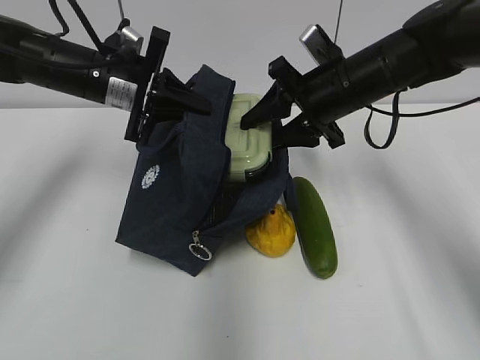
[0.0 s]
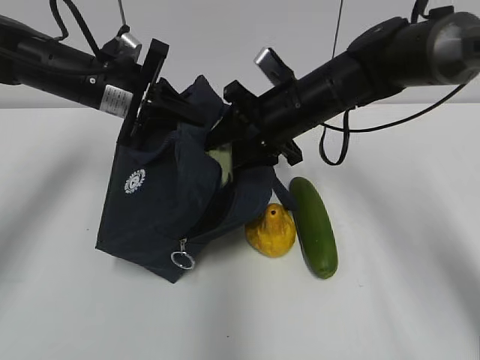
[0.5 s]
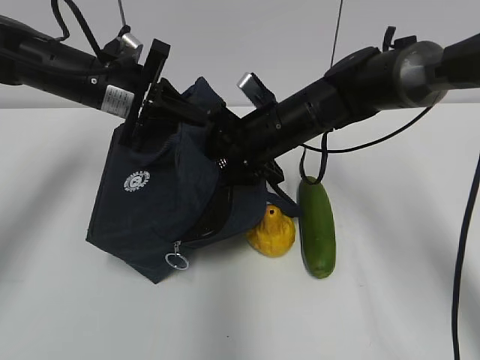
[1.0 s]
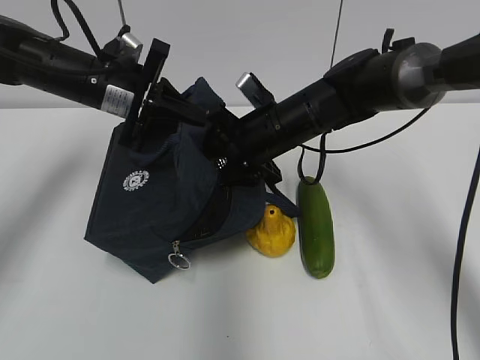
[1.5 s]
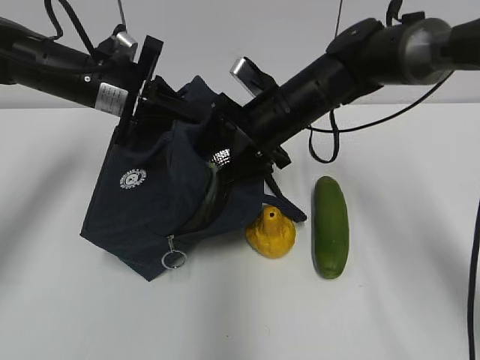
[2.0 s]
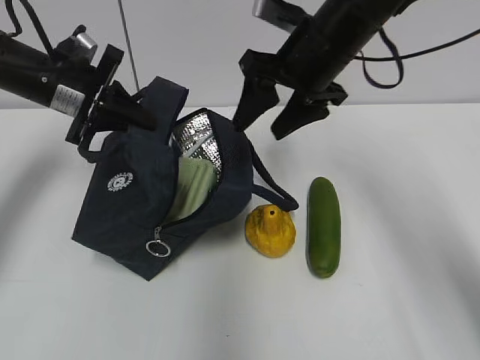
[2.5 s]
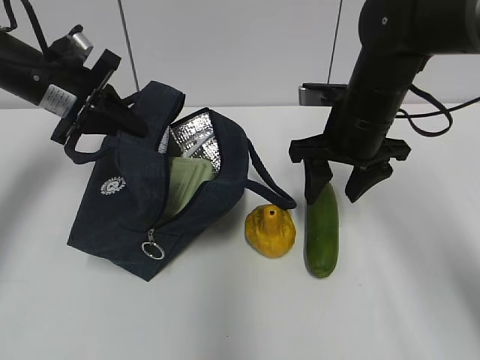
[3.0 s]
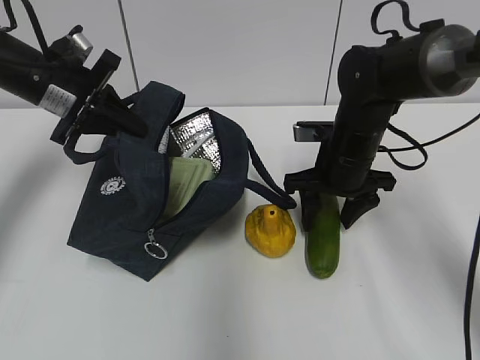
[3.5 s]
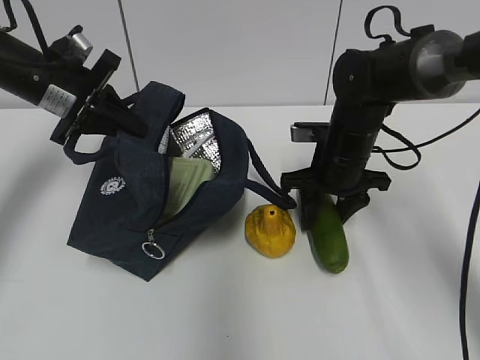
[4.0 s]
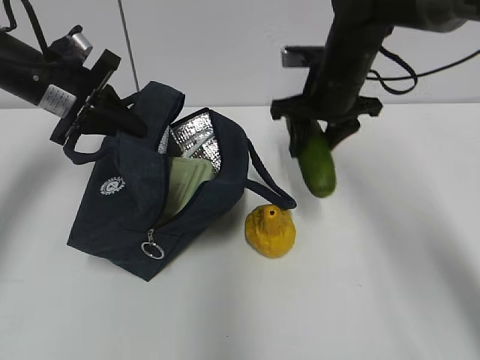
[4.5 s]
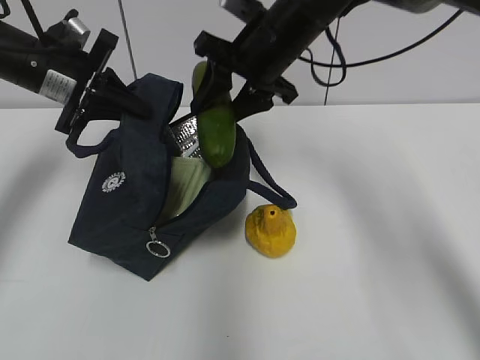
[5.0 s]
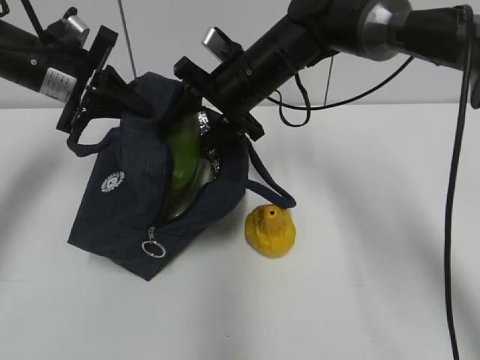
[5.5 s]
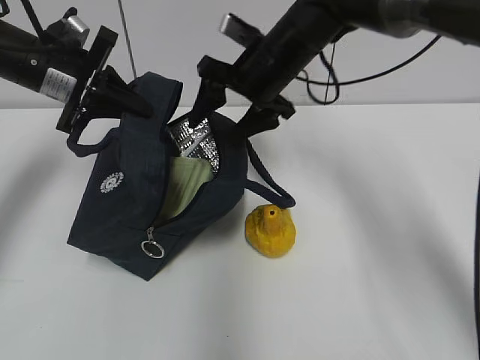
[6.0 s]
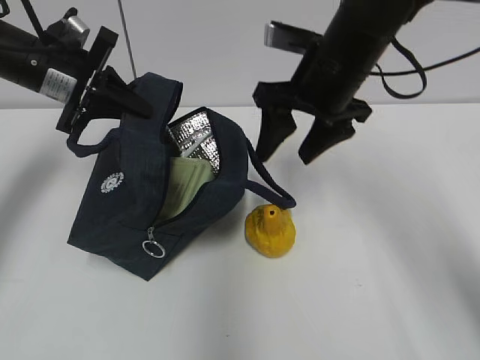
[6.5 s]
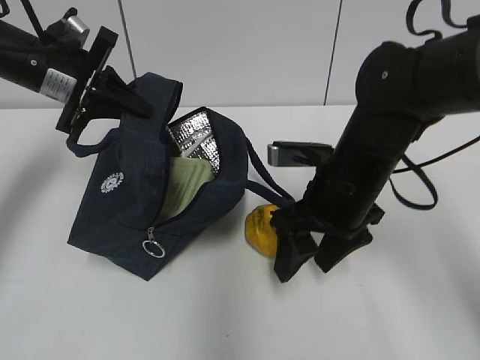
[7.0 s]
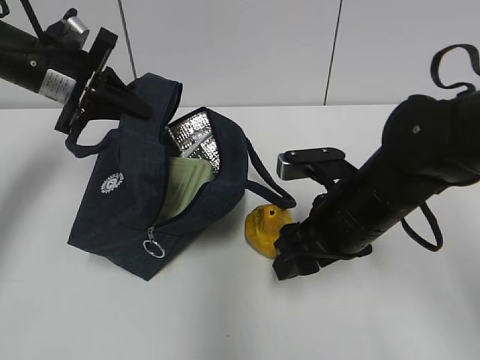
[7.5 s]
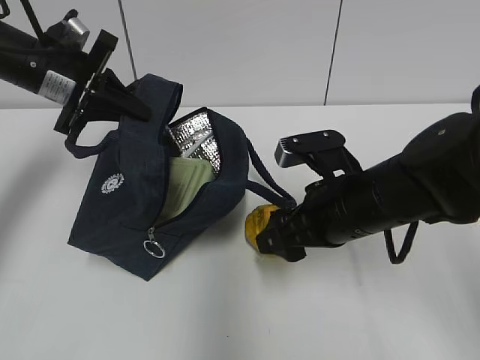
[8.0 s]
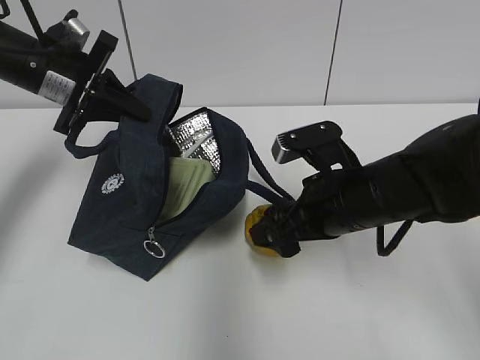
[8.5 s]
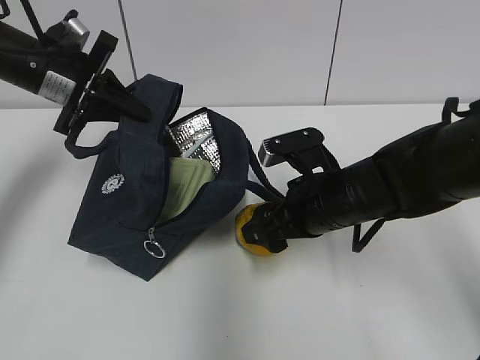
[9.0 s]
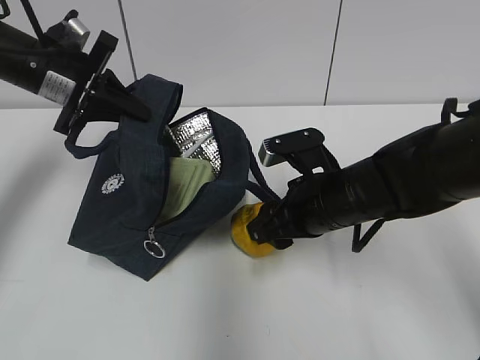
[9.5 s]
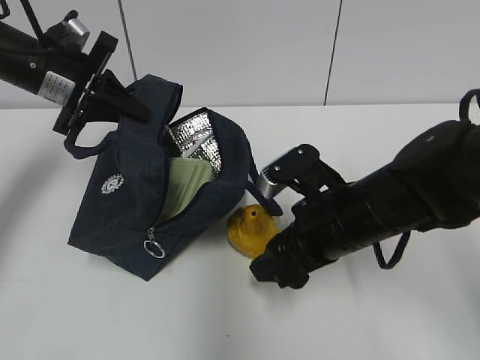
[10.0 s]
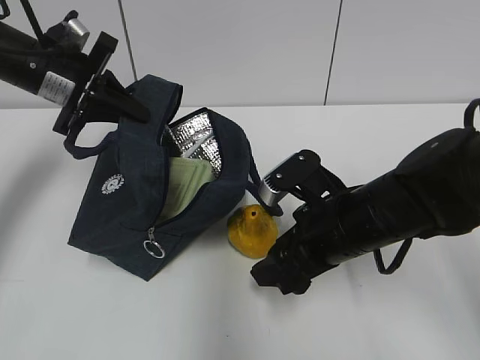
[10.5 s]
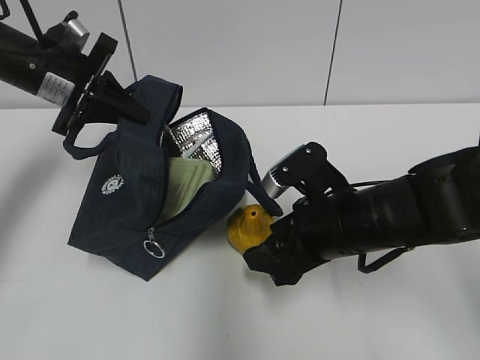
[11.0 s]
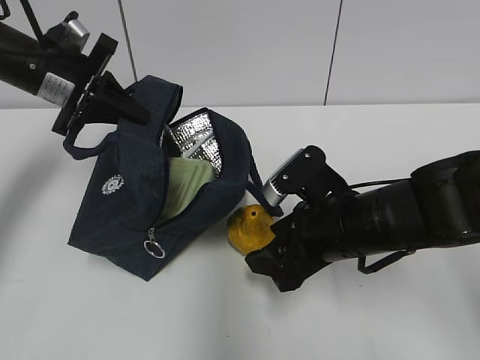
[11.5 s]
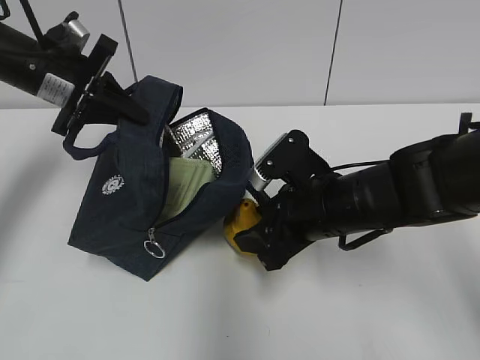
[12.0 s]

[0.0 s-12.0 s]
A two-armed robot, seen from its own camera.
Step, 0.0 to 2.5 s: Place it into the bag with your right hand.
Step, 3.0 to 3.5 s: Grab the cucumber with your right hand.
Step, 4.0 to 6.0 s: Place it into the bag with your right hand.
0.0 to 2.0 s: The right gripper travels to the left by some 5 cm.
2.0 to 4.0 s: The left gripper moves to the left, roughly 5 cm. The right gripper moves to the right, approximately 5 cm.
4.0 to 6.0 s: The right gripper travels upward and to the left by about 15 cm.
6.0 to 8.0 s: The right gripper heads backward and downward, covering some 20 cm.
8.0 to 10.0 s: The grippers make only small movements.
10.0 to 12.0 s: The grippers stay close to where they were, moving slightly.

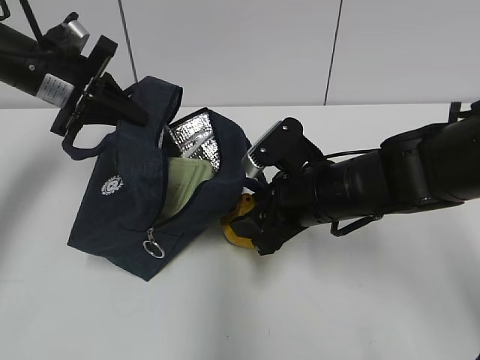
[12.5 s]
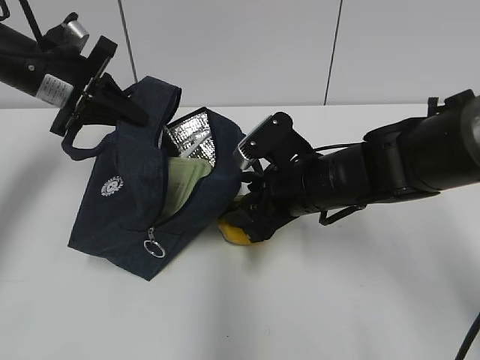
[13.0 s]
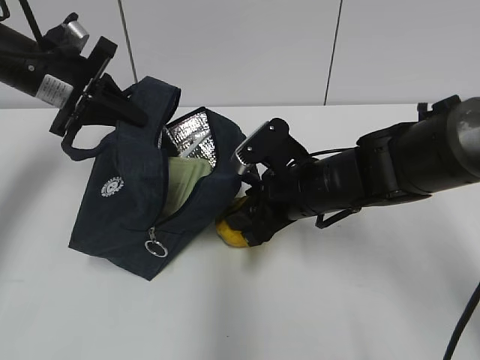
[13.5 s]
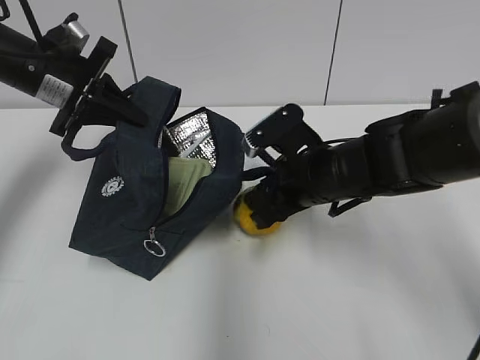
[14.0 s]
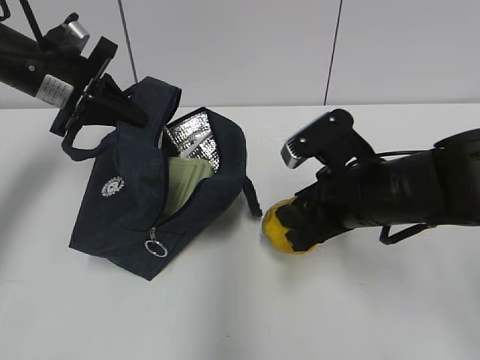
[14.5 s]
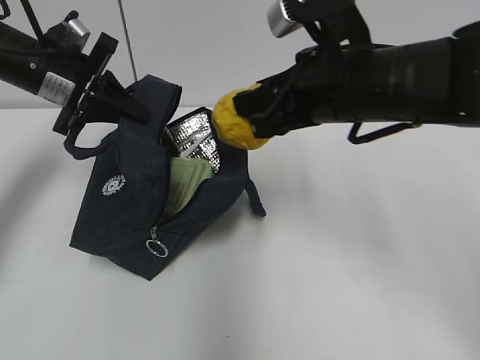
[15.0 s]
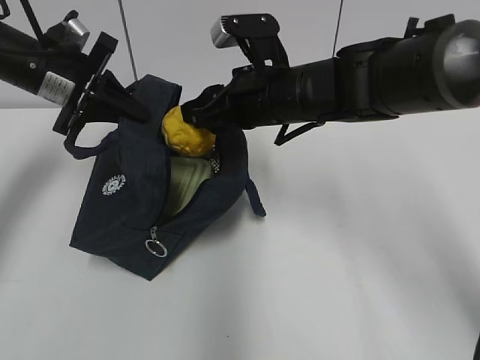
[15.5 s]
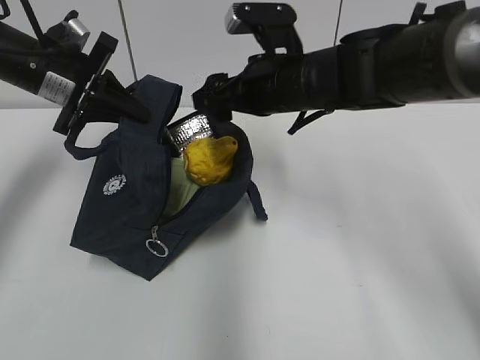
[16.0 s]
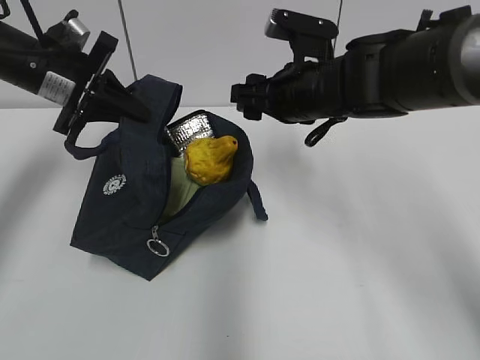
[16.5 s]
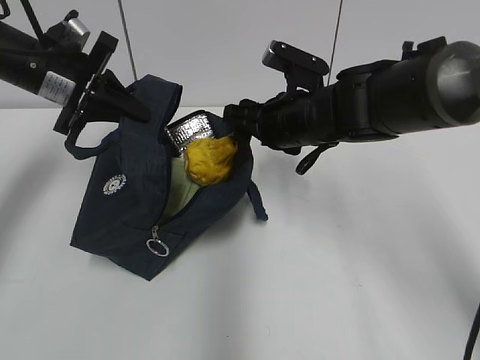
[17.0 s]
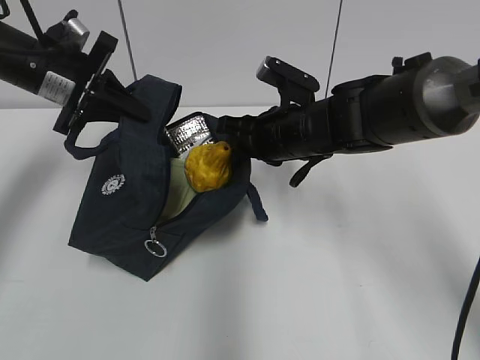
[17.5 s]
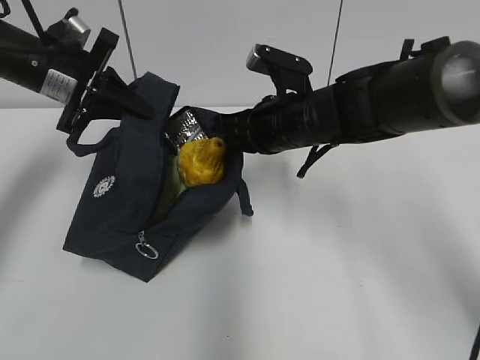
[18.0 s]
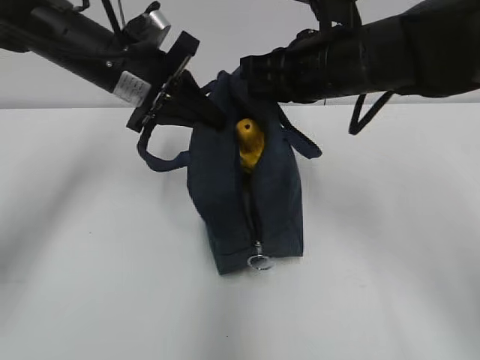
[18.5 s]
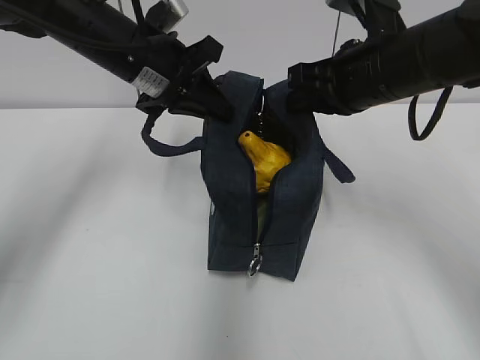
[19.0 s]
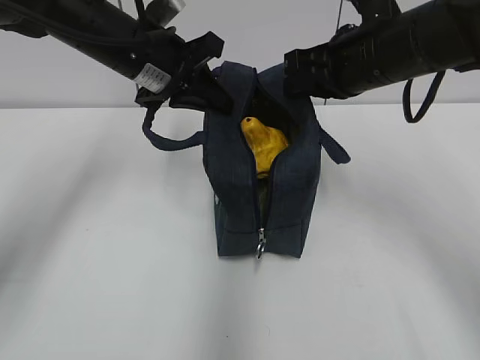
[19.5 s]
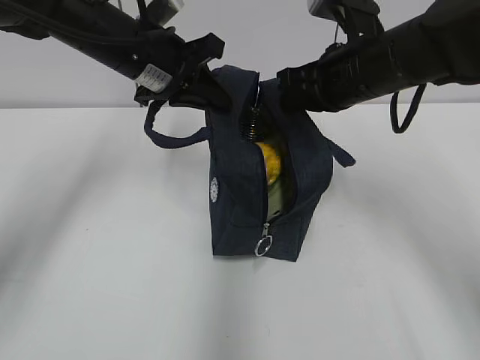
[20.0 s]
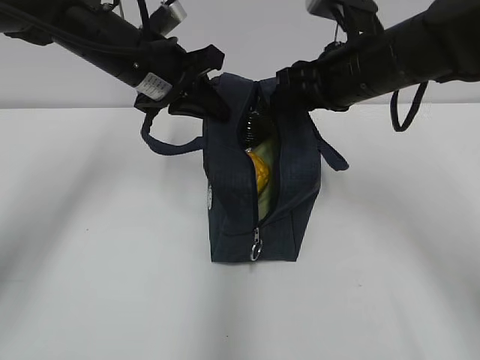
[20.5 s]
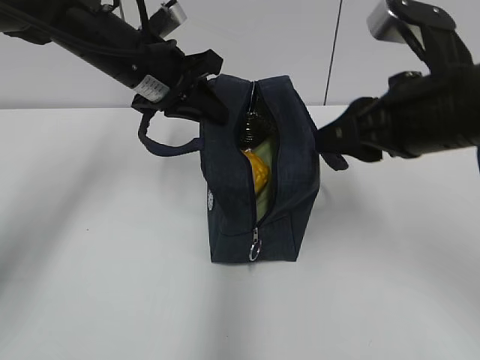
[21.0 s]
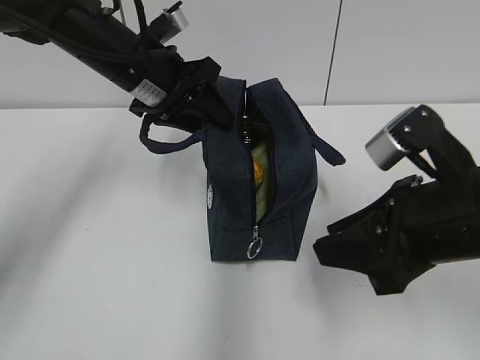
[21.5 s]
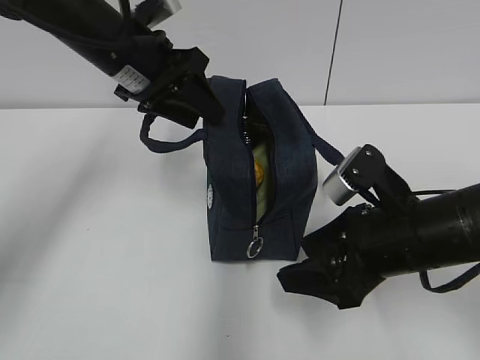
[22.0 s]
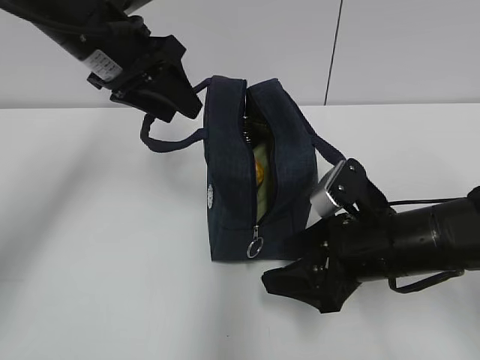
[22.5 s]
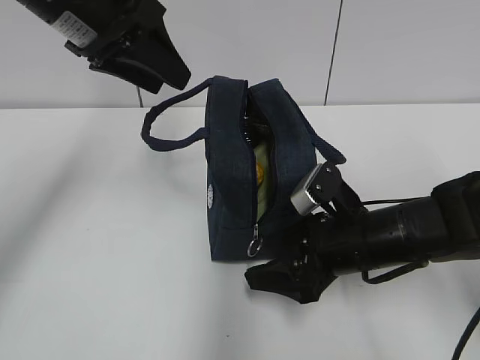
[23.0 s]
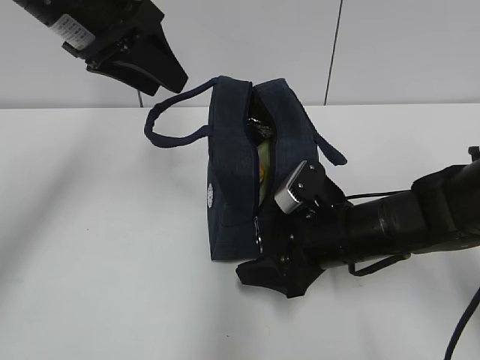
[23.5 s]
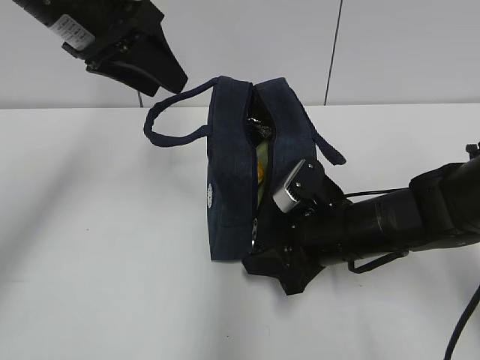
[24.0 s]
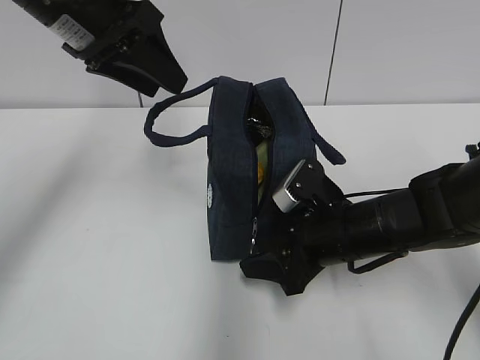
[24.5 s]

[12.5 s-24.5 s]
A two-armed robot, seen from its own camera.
Step, 14.0 to 16.0 s: Place it into the bag with your right hand.
Step, 16.5 to 17.5 s: Grab the lunch bag with your right hand.
Step, 18.5 to 20.5 s: Move the lunch bag to the right.
12.5 to 14.5 s: The grippers move only a little.
14.5 to 16.5 s: The right gripper is displaced forward and upward by approximately 10 cm.
16.5 to 18.5 s: The right gripper moves some 5 cm, and closes its fingers; the left gripper shifts roughly 10 cm to the right.
18.5 to 20.5 s: The right gripper opens up.
20.5 to 22.5 s: The right gripper goes about 15 cm downward and backward, and opens up, while the left gripper ends up about 5 cm from where it was, and opens up.
22.5 to 24.5 s: The right gripper changes place by approximately 5 cm.

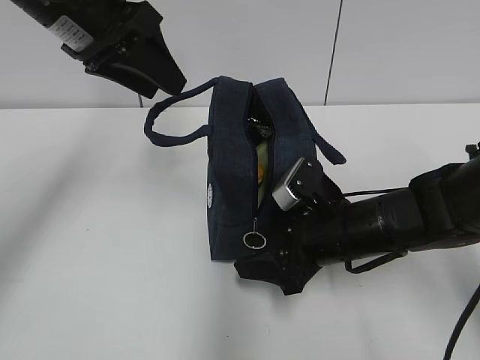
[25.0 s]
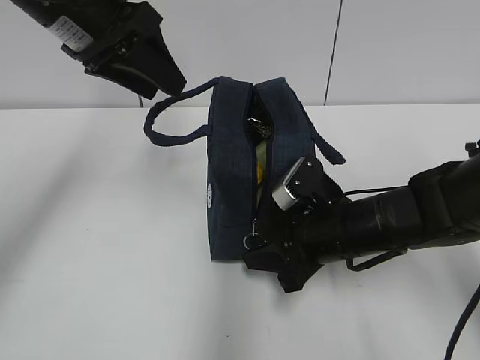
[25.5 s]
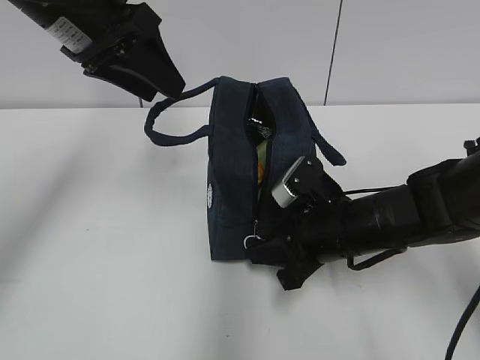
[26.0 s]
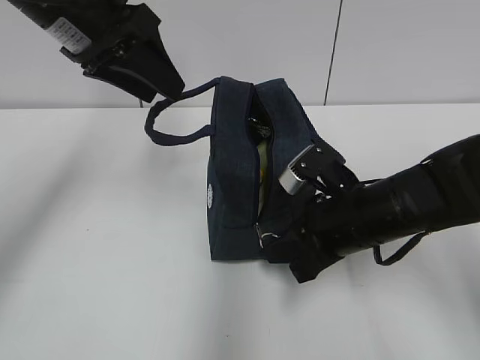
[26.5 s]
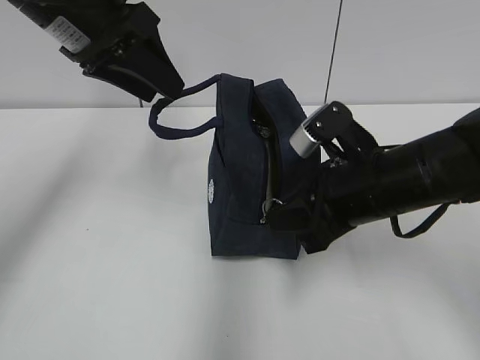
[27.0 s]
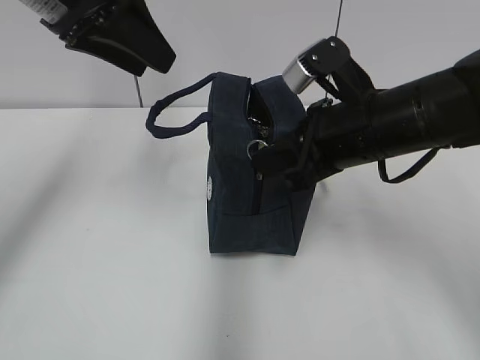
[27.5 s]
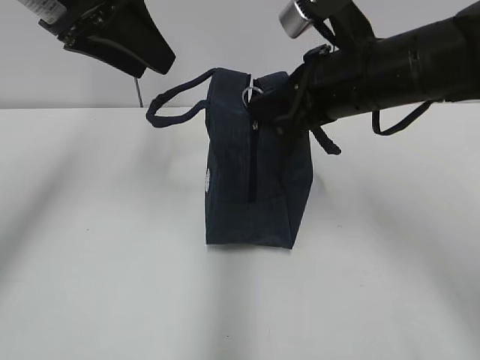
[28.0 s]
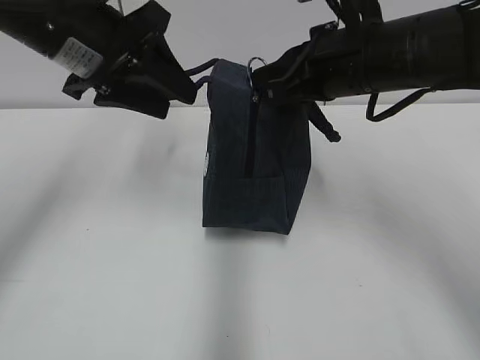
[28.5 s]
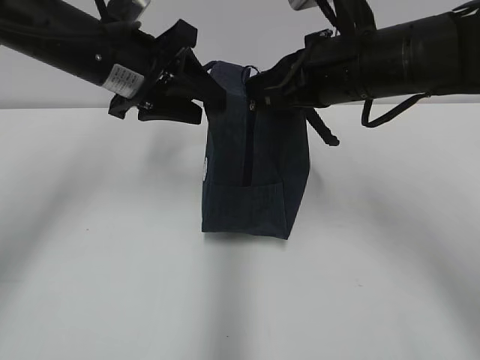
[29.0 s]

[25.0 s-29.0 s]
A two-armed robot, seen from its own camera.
25.0 to 27.0 s: The right gripper heads upward, covering roughly 10 cm, and closes.
27.0 to 29.0 s: The left gripper shifts roughly 5 cm downward; the right gripper heads upward and forward, covering about 10 cm.
